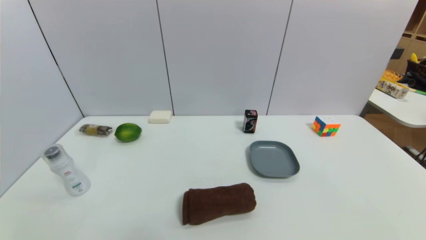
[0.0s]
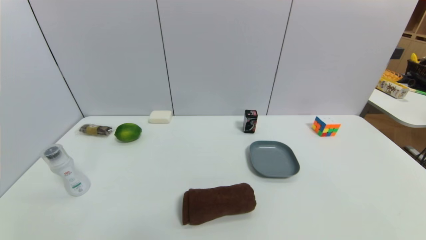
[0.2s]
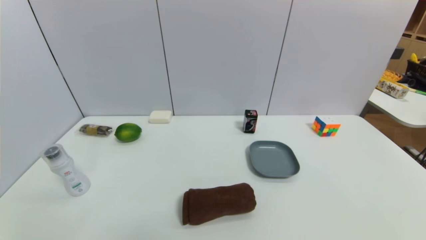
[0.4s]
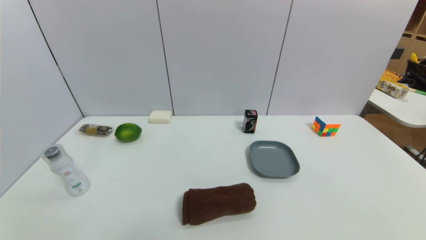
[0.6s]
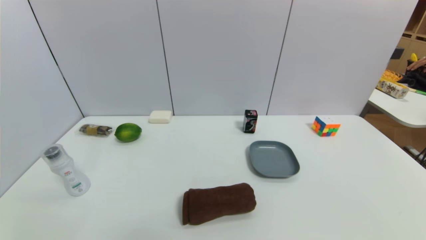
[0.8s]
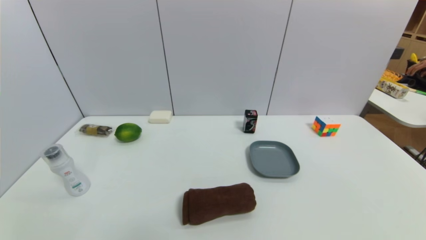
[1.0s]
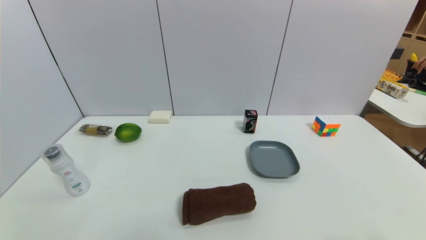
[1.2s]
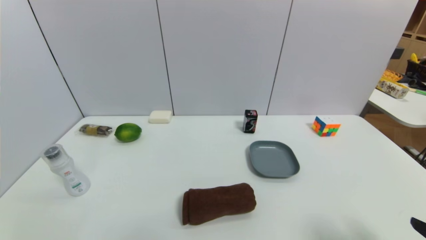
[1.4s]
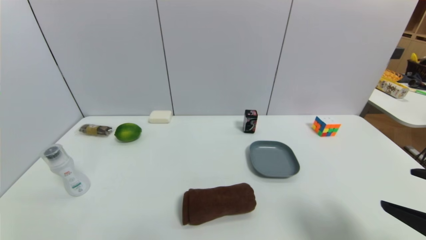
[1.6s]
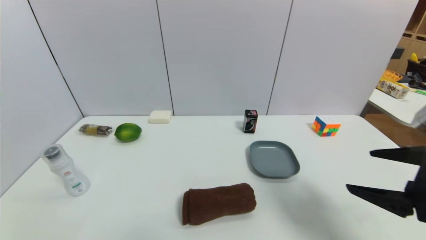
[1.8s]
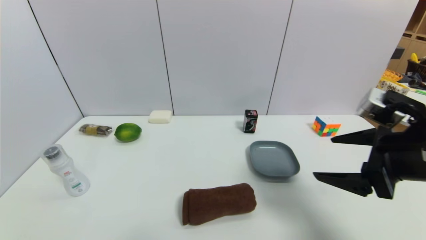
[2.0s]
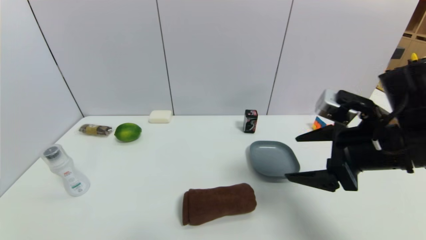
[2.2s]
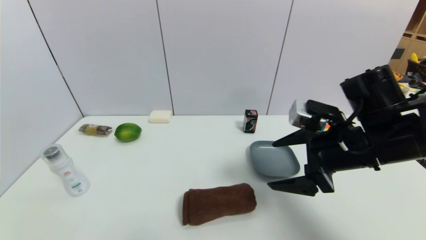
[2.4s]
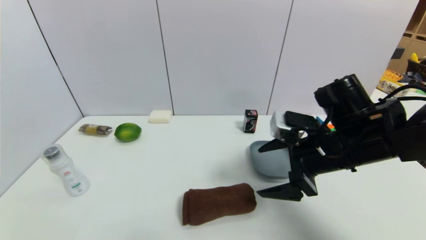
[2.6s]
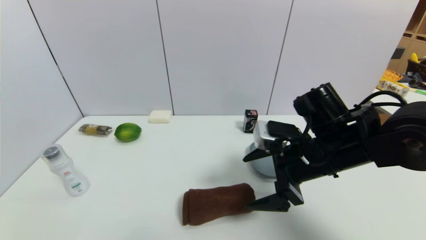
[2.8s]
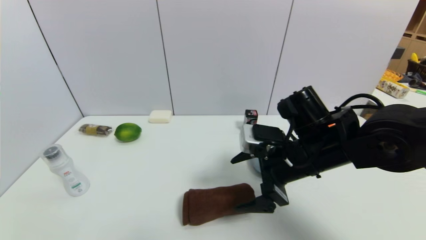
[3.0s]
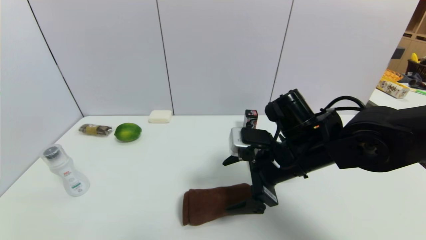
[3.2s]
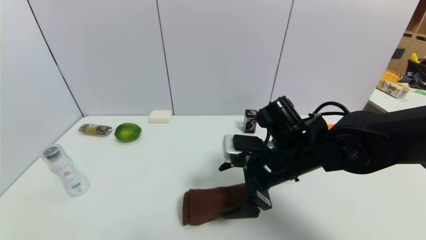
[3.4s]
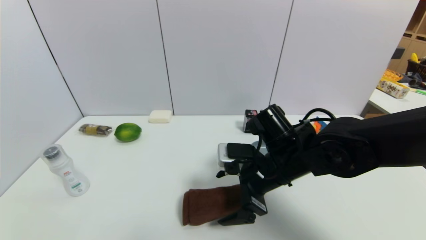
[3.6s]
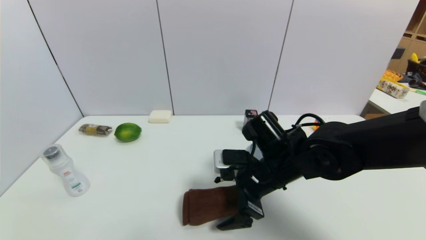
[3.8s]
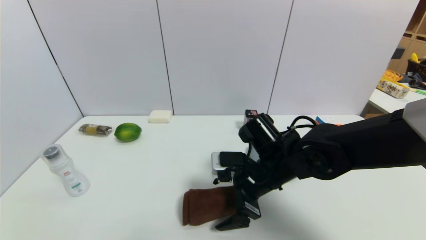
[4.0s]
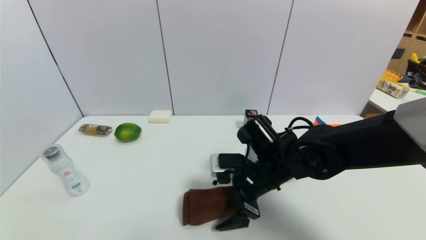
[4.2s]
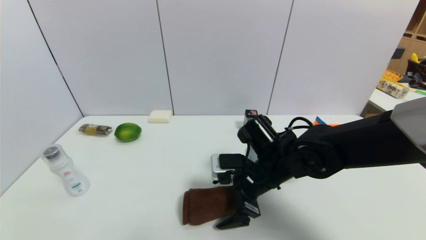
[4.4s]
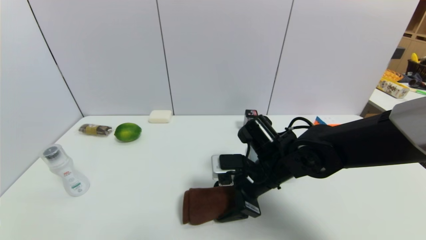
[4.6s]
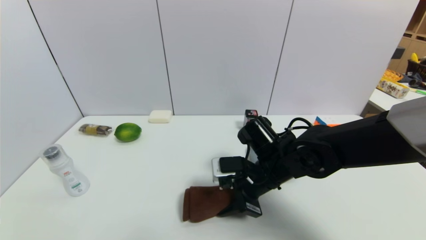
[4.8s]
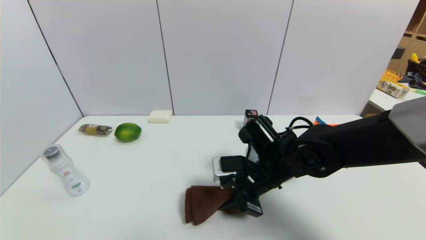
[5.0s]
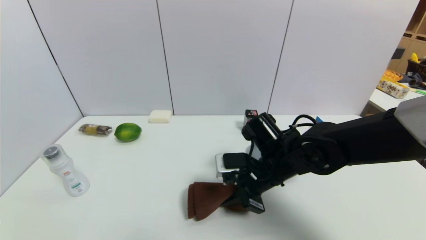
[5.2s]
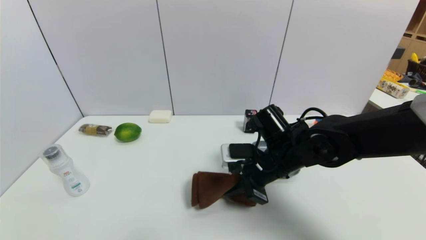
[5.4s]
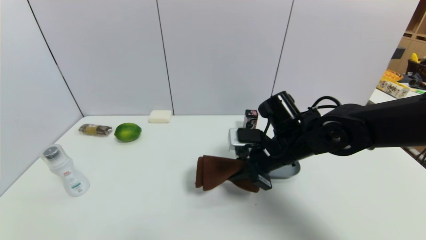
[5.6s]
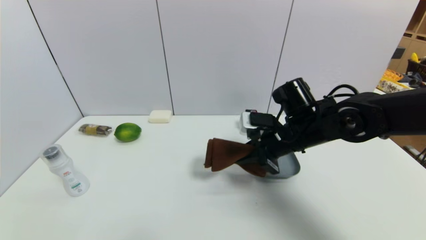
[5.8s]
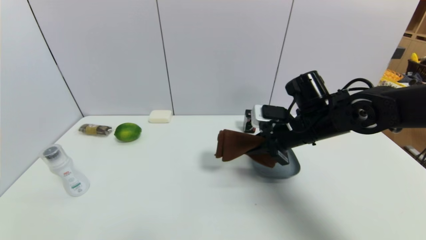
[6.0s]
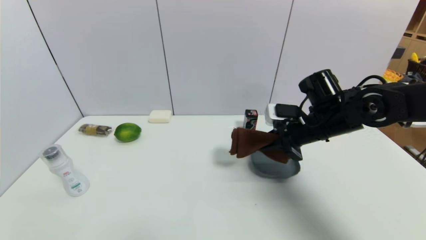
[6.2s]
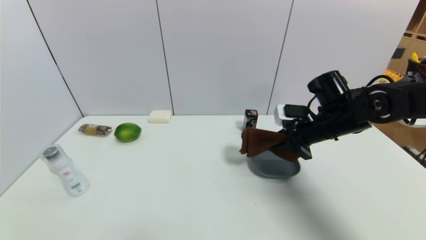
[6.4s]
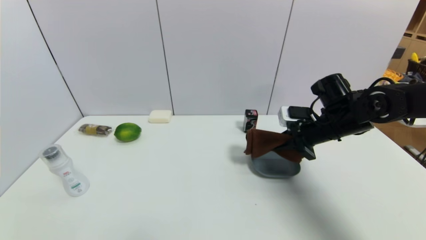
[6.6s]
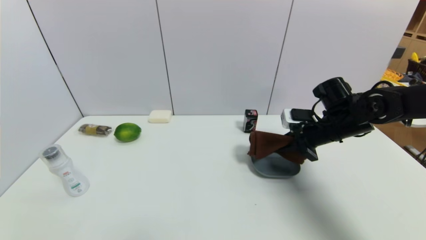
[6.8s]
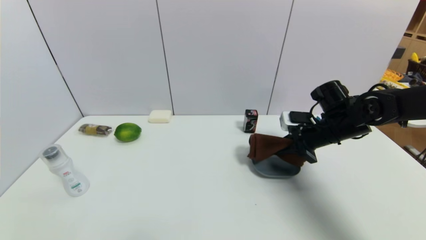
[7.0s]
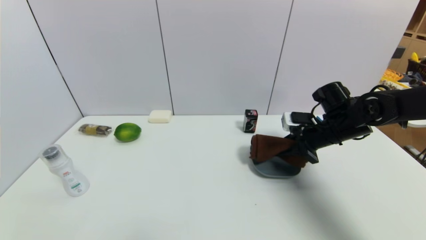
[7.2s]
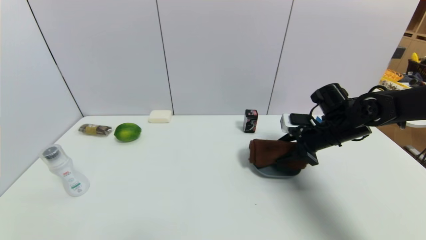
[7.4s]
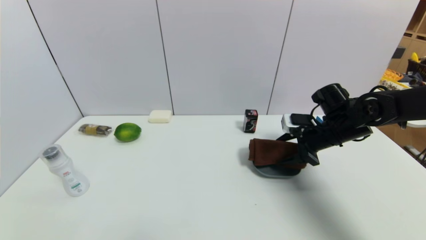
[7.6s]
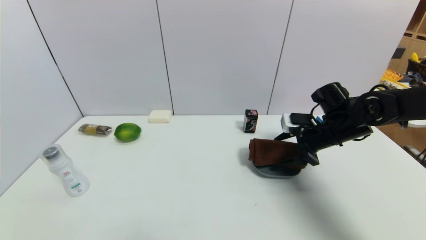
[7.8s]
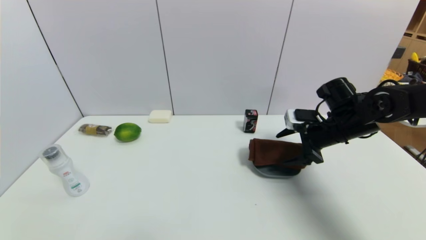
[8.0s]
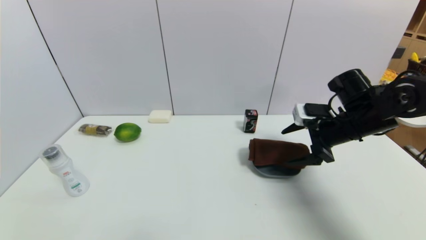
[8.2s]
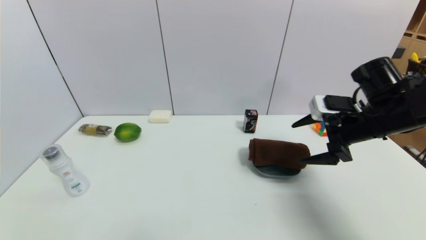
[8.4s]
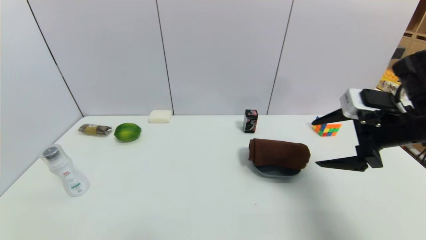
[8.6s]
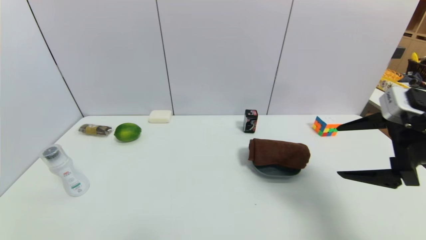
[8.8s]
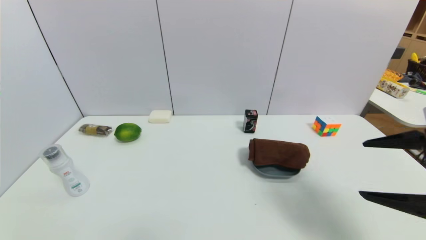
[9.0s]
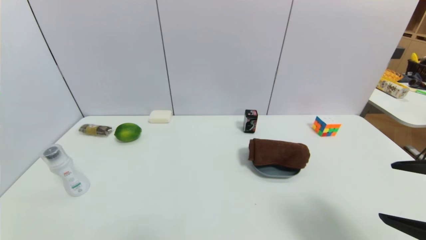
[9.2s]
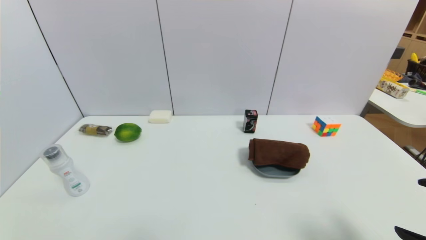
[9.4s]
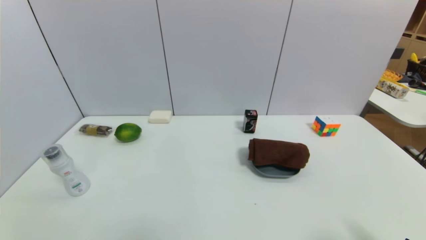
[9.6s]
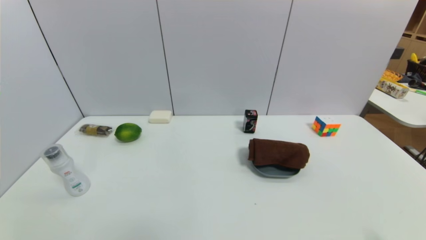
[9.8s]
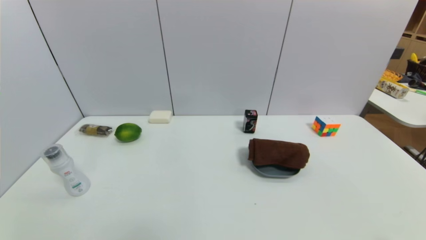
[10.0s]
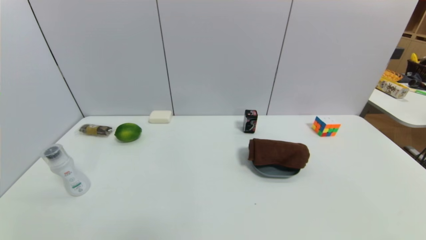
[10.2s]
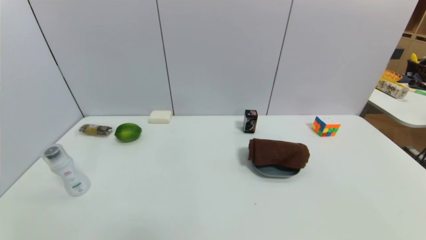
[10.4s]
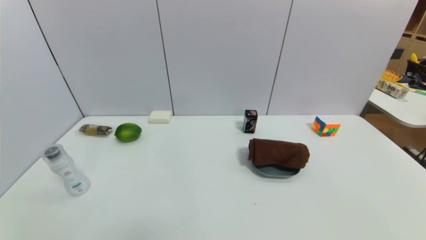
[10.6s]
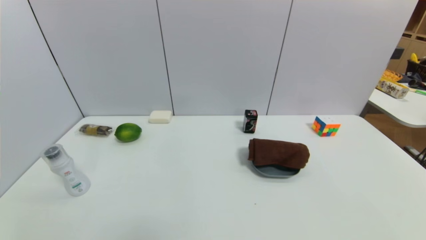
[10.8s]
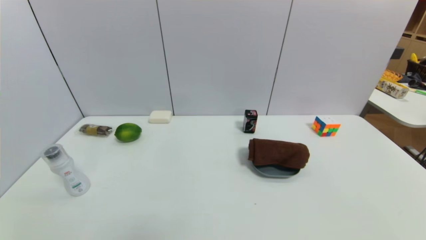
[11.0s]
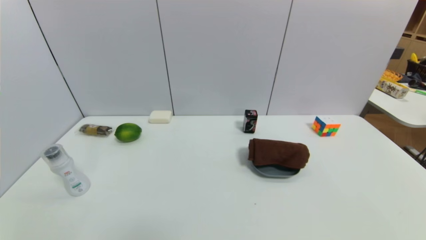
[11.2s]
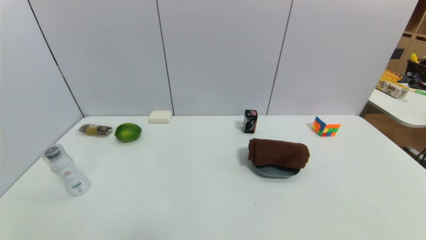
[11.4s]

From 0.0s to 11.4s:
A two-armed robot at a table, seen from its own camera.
Task of the whole recording: use a gripper to pick the target object and place on the dish.
Step, from 0.0s to 5.0s: Grasp the brown towel with the right gripper.
Step, from 5.2s to 8.6s: Place the brown towel on the dish with the right gripper.
From 0.0s to 1.4s: The right gripper goes approximately 15 cm upward and forward.
From 1.4s to 2.8s: The right gripper goes approximately 25 cm forward and to the left.
From 2.8s to 4.2s: The right gripper shifts about 10 cm to the left and downward.
From 4.2s to 5.6s: The right gripper moves some 5 cm, and closes up.
From 5.6s to 7.2s: The right gripper goes some 15 cm to the right and forward.
From 7.2s to 8.6s: The right gripper is displaced backward and upward by some 15 cm, and opens its fingers.
From 8.6s to 10.0s: The right gripper moves backward and downward, approximately 25 cm.
